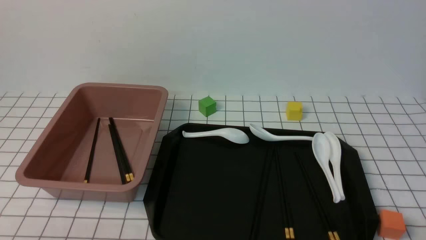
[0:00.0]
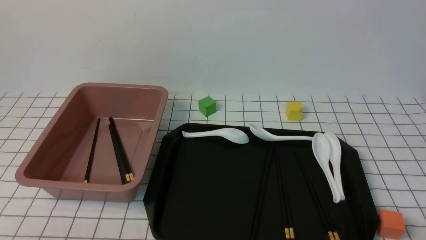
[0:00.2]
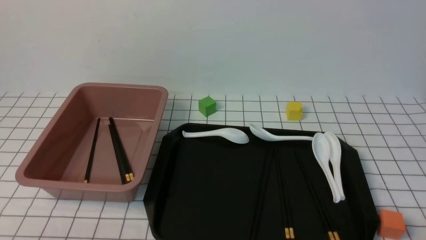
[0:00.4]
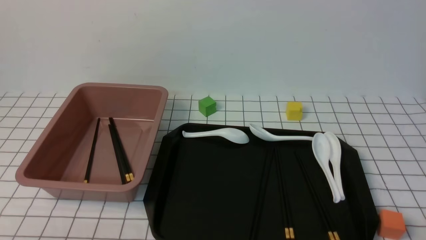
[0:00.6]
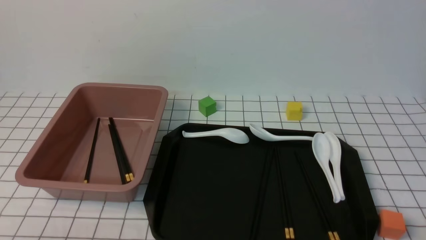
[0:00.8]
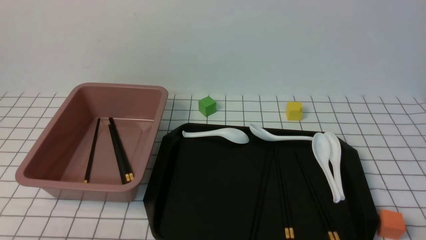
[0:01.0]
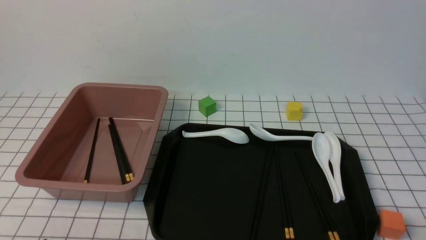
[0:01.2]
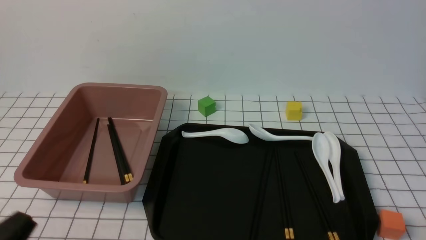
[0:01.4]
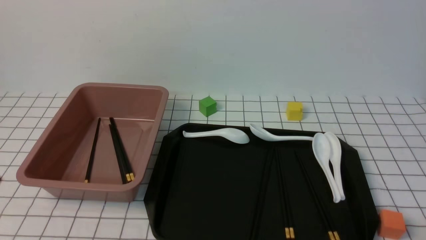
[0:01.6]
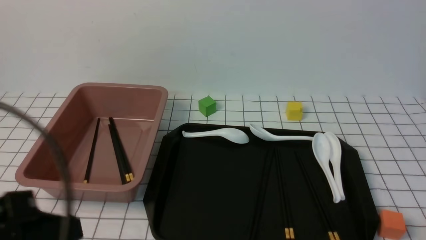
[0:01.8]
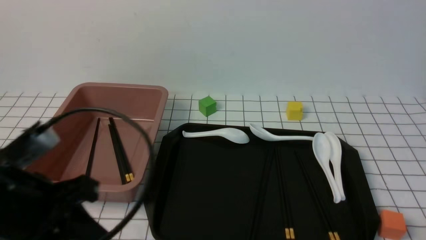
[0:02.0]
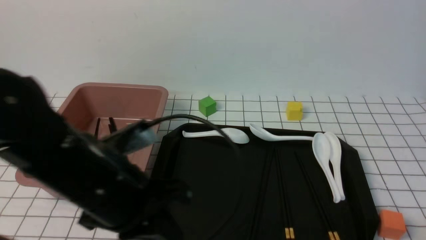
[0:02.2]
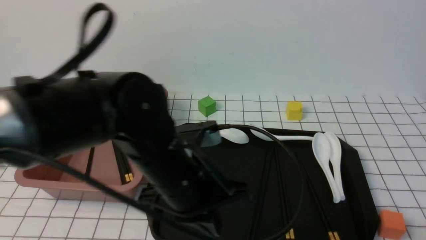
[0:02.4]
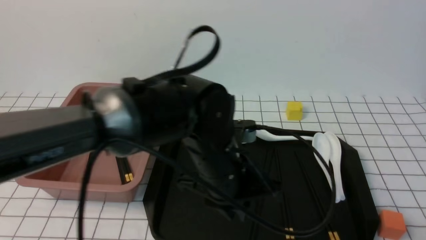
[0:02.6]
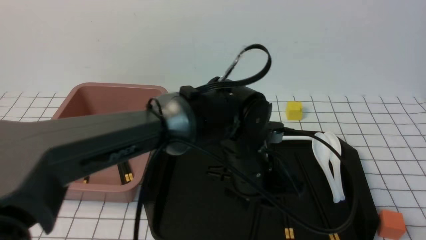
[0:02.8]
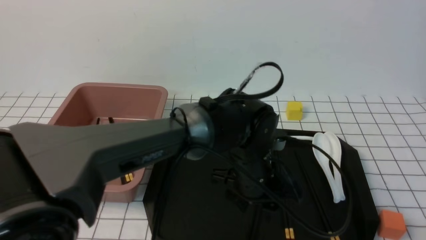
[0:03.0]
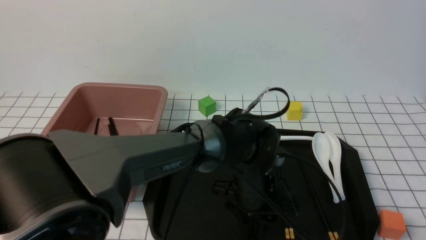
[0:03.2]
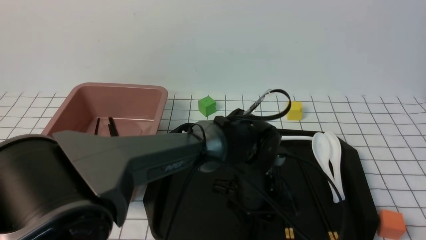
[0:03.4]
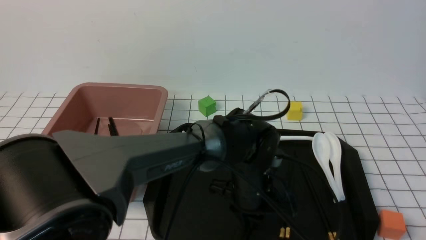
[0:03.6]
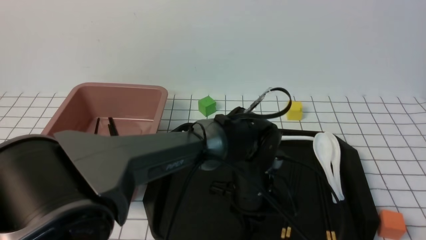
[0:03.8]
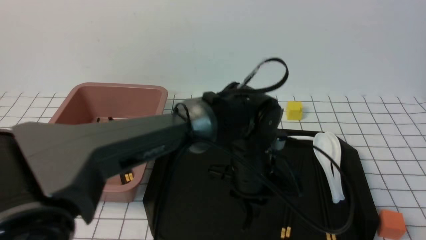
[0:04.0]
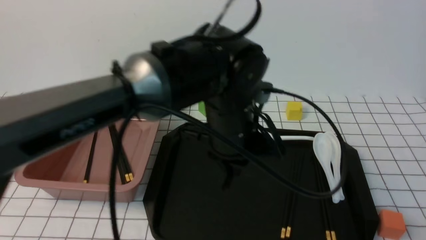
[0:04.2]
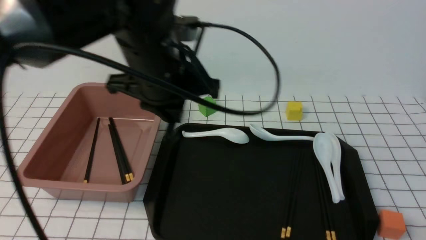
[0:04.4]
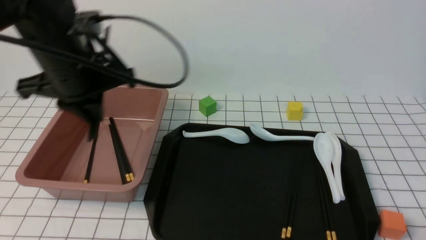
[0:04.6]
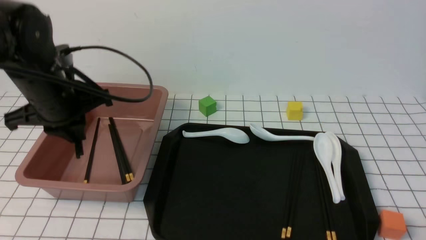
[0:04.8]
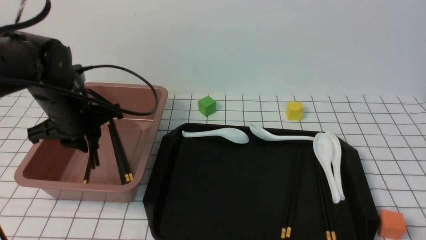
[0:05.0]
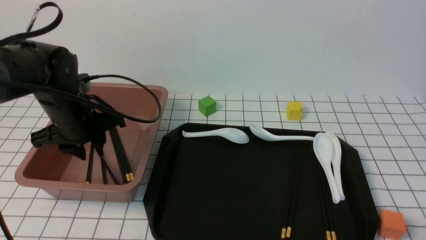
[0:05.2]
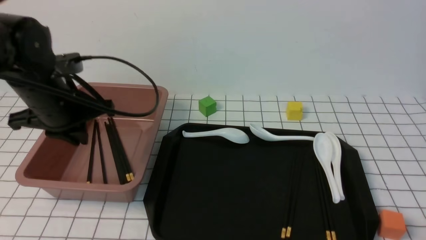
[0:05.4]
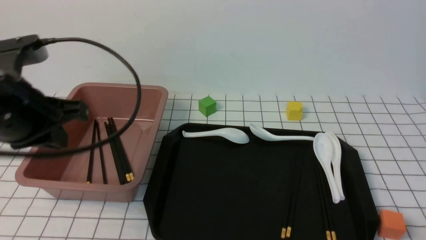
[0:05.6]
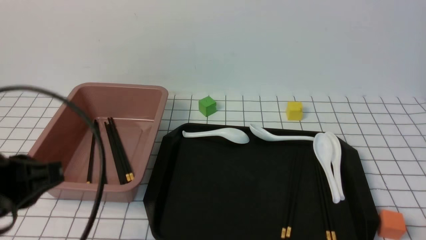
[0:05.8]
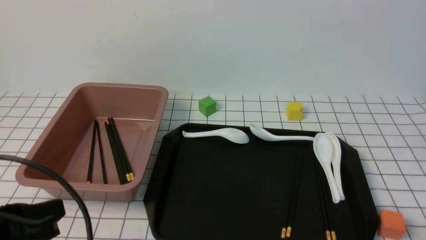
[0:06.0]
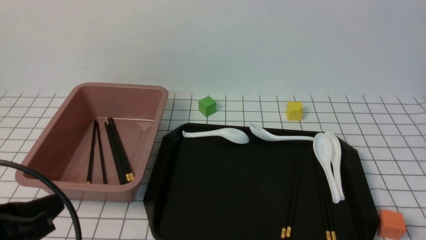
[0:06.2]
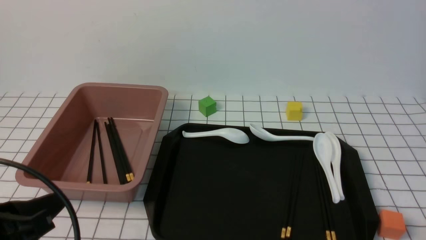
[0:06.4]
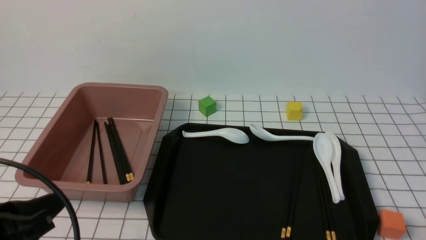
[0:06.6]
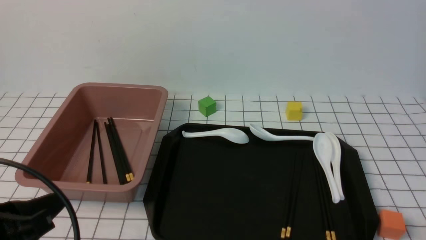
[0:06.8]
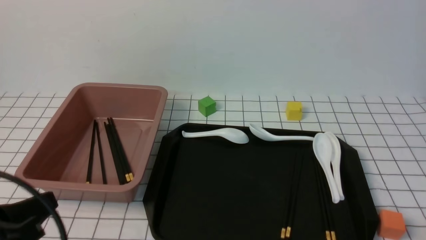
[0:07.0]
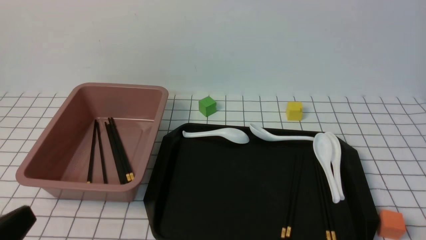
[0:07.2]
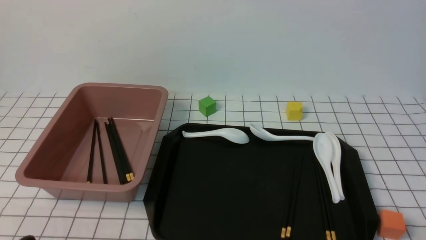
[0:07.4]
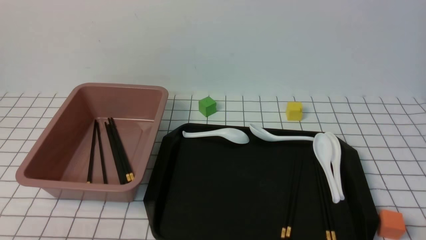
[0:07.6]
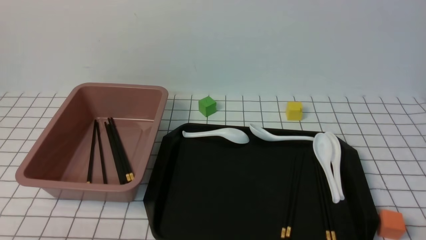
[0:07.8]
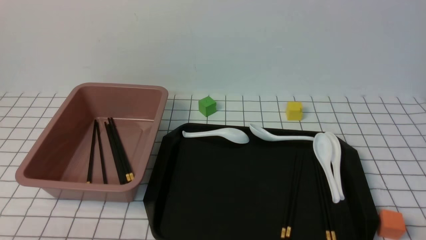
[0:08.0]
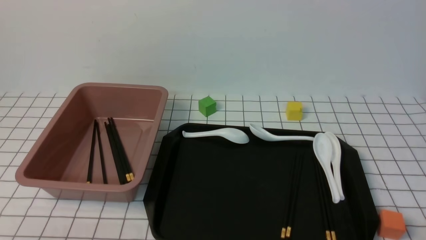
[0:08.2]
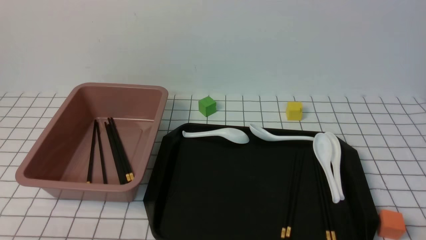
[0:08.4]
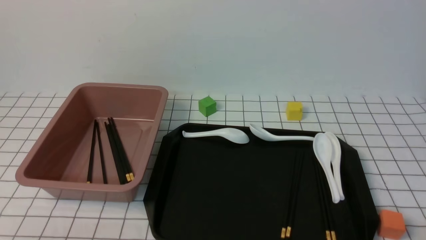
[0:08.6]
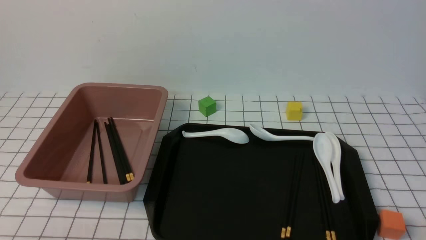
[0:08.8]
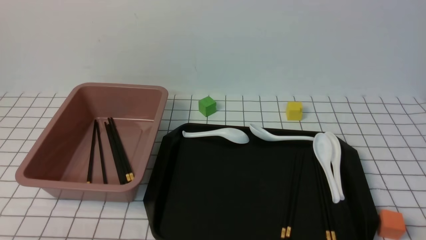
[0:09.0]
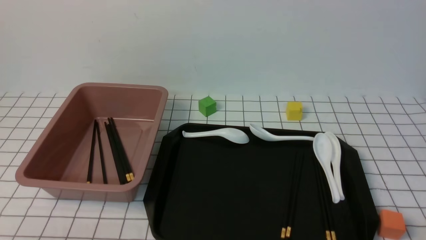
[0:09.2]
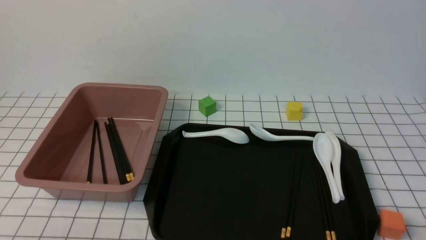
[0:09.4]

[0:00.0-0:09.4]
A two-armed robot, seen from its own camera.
Step, 0:00.0 to 0:03.8: use the left arm to grab a pair of chopsticks.
Step, 0:04.0 to 0:05.4: use the left arm to put the chopsticks into the lunch box.
0:01.6 to 0:03.2: The left gripper goes about 40 cm to the right and forward, and opens.
0:03.2 to 0:04.8: The left gripper heads to the left and upward, covering approximately 30 cm, and closes up.
0:04.8 to 0:06.2: The left gripper goes some 20 cm backward.
0:06.2 to 0:07.8: The left gripper shifts approximately 10 cm downward and backward.
